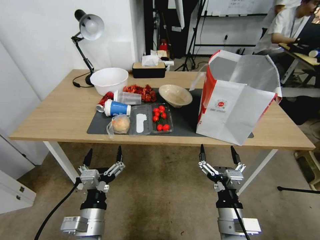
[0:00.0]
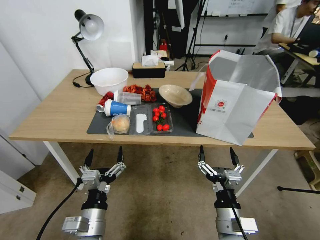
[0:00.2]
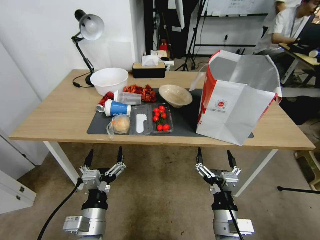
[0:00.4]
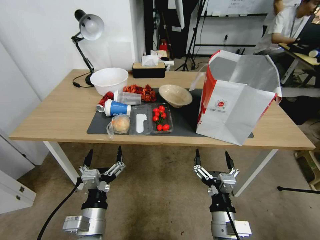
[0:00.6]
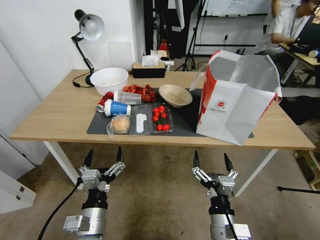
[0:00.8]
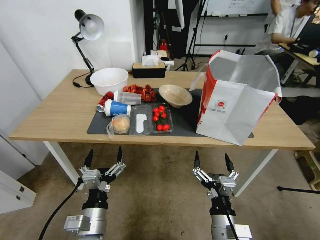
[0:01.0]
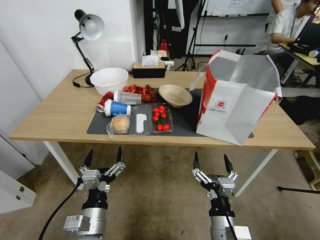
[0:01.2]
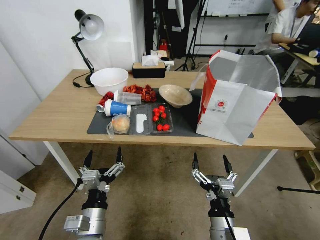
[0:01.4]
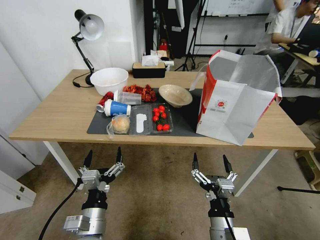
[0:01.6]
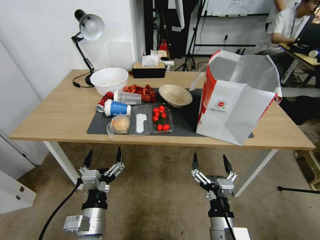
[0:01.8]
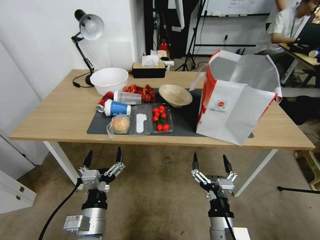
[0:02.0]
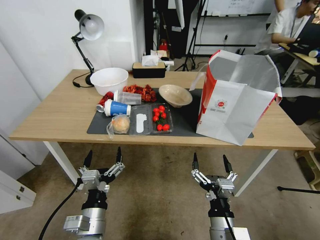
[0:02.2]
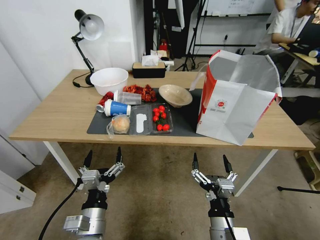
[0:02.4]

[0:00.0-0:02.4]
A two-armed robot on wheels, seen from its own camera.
Task of the whole recording: Pick up the food delivery bag from the floor and place it on the table.
0:00.0 to 0:01.2: The grippers make only small movements.
0:01.2 to 0:02.4: Both grippers stay put.
